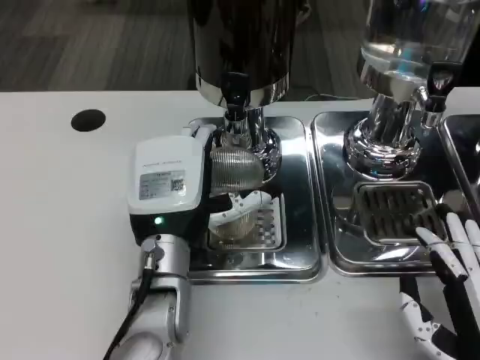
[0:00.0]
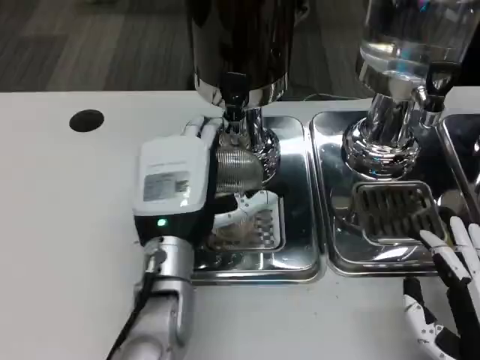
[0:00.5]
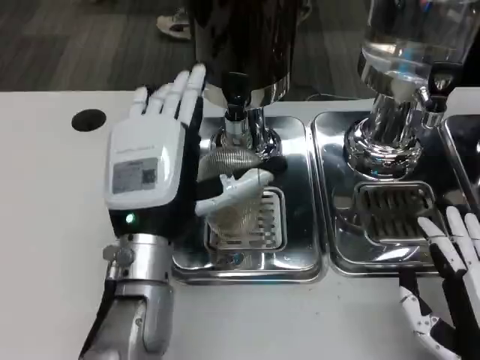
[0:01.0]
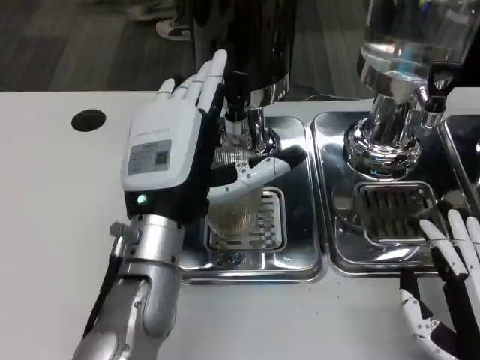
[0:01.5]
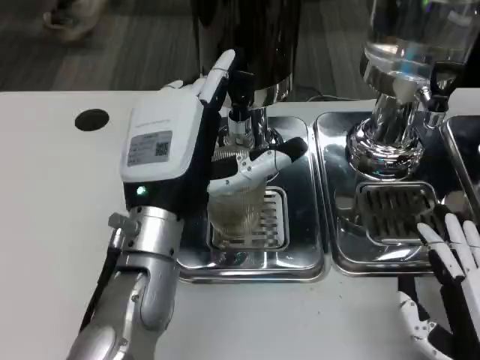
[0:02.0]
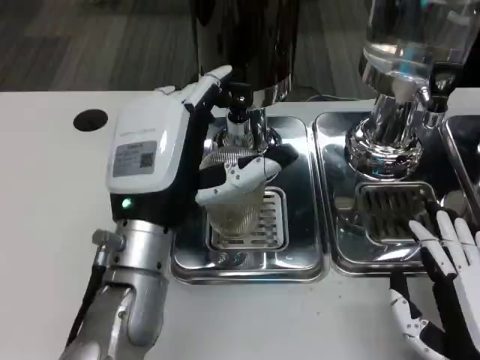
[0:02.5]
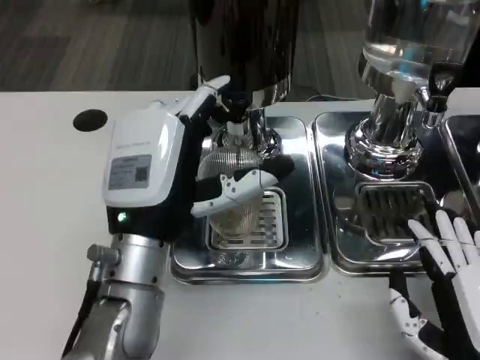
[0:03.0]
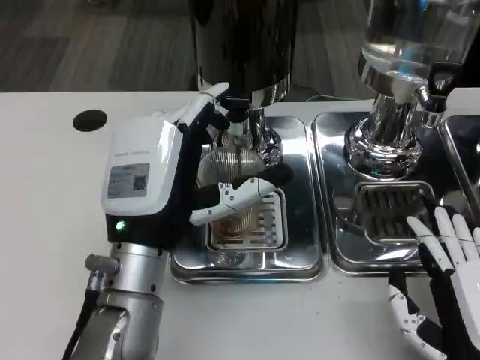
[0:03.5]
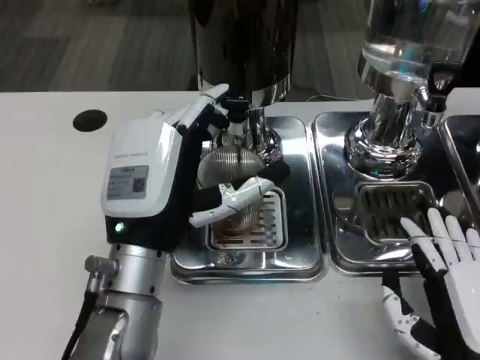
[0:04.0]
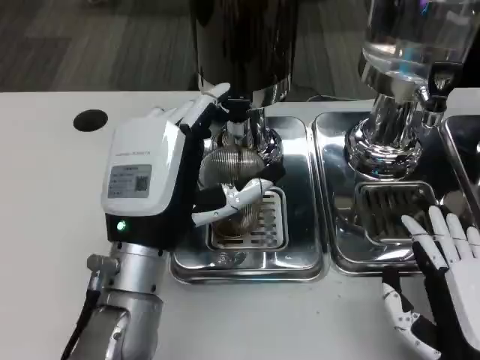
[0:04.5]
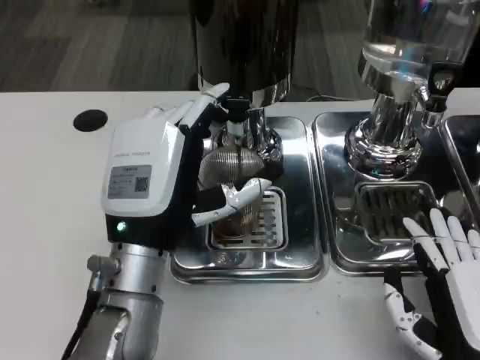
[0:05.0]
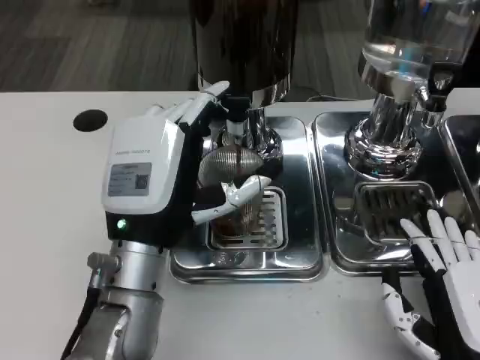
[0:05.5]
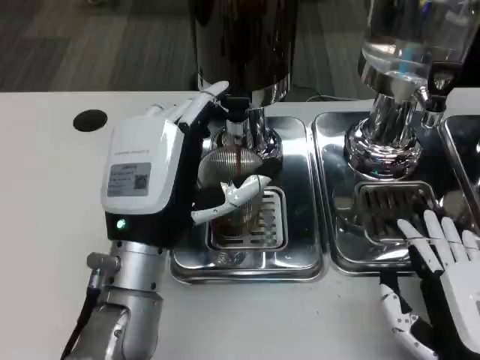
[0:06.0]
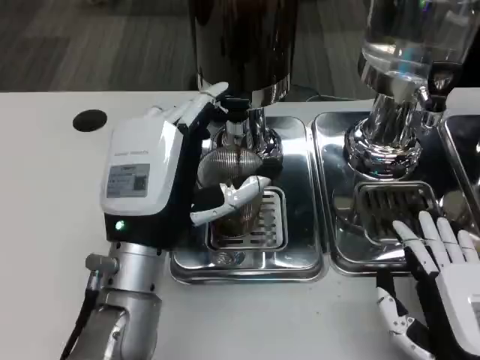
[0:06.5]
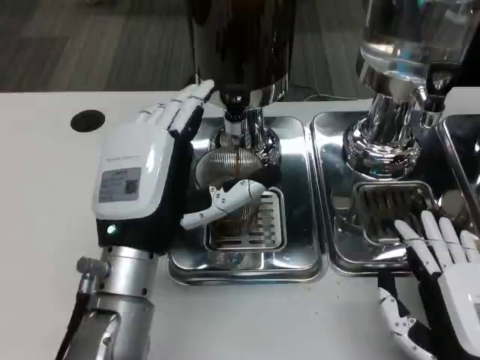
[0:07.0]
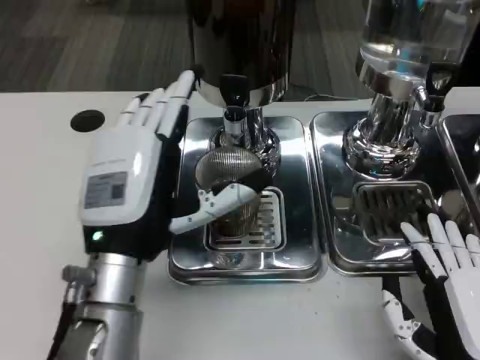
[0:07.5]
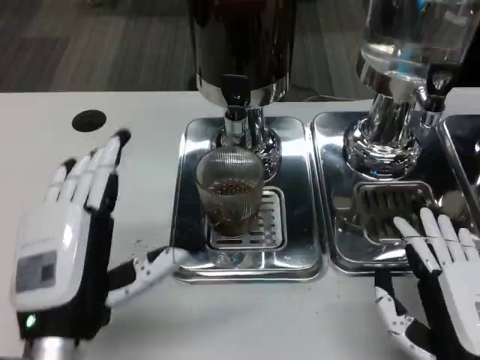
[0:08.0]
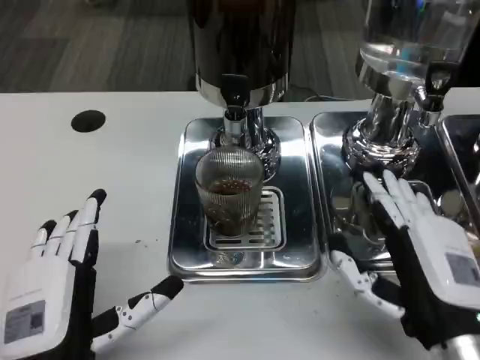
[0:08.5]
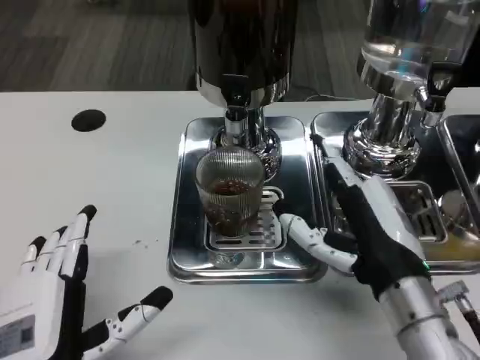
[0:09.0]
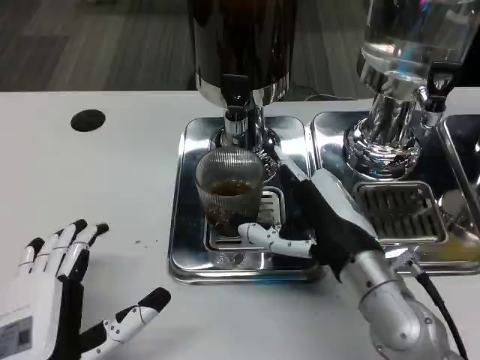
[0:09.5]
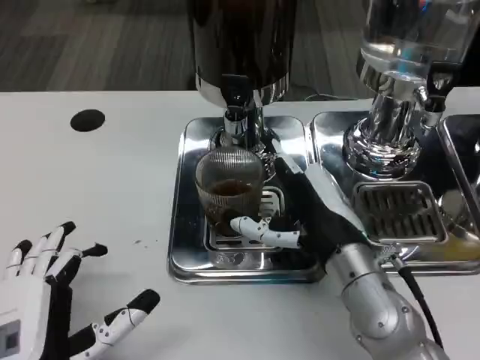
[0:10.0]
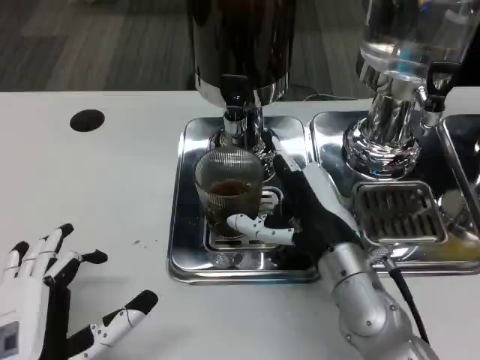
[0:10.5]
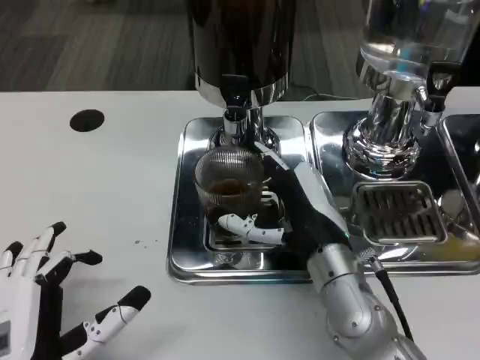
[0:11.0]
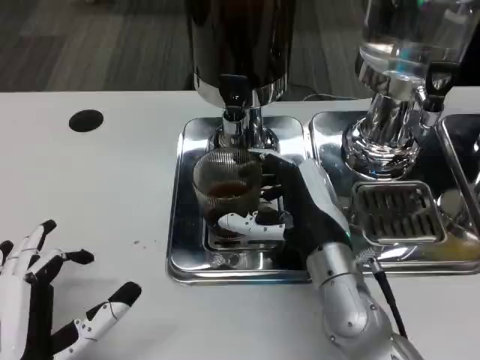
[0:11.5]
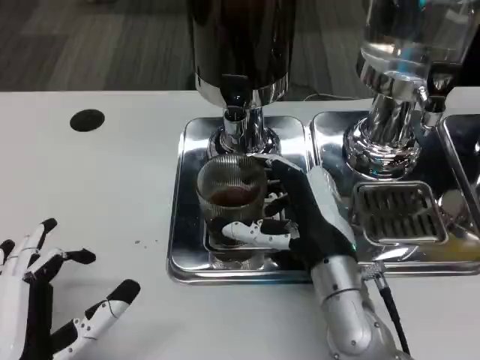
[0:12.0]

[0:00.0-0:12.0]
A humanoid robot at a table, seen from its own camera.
Task of the whole recording: Grasp the cup under the faucet to collect the drink, then remove the cup.
0:00.0 to 0:02.0: The left hand changes place by about 5 cm.
0:04.0 to 0:06.0: The two hands keep their place.
0:06.0 to 0:08.0: The left hand shifts some 10 cm backward and to the left.
0:08.0 to 0:10.0: The left hand changes place by roughly 5 cm, while the right hand moves forward and to the left, some 15 cm.
0:10.0 to 0:12.0: The hands move only a little.

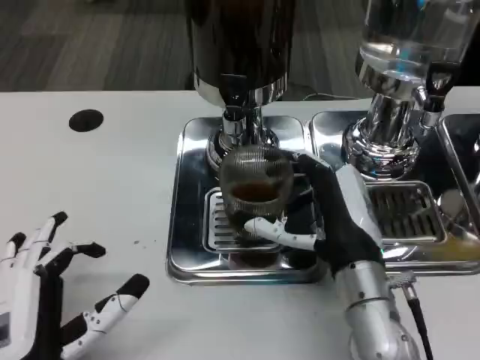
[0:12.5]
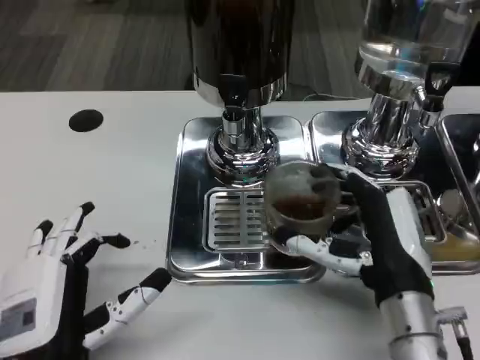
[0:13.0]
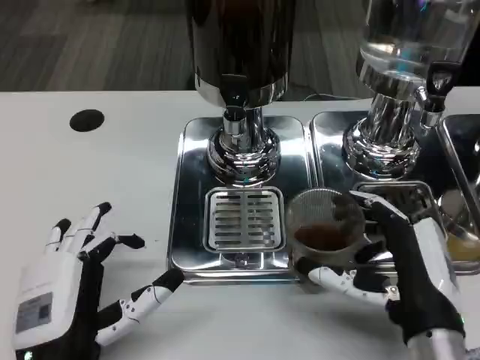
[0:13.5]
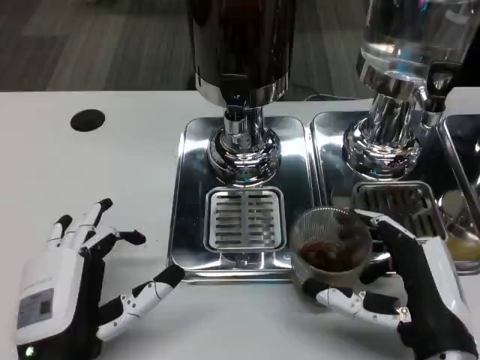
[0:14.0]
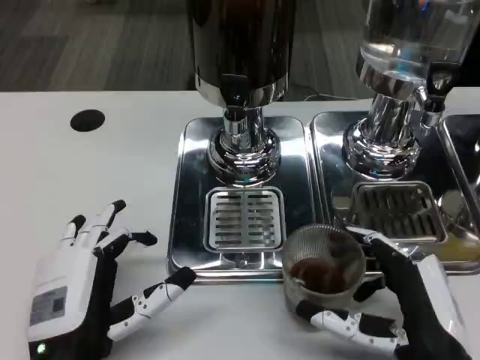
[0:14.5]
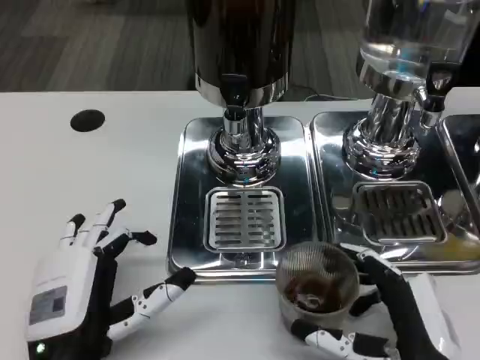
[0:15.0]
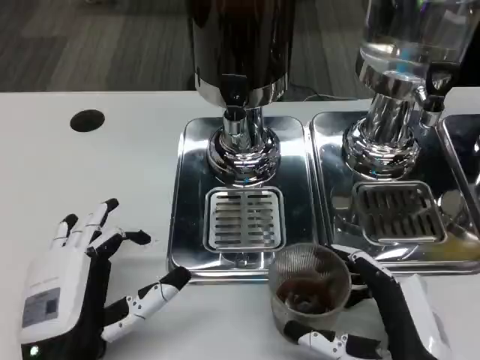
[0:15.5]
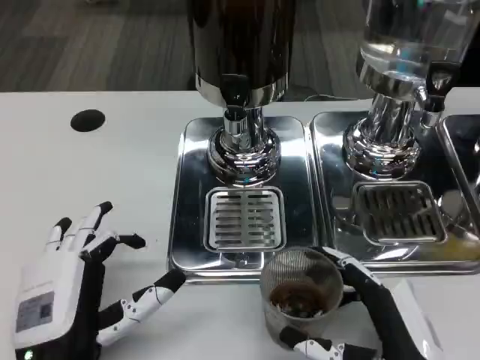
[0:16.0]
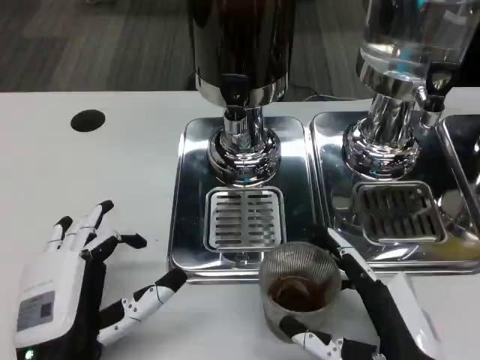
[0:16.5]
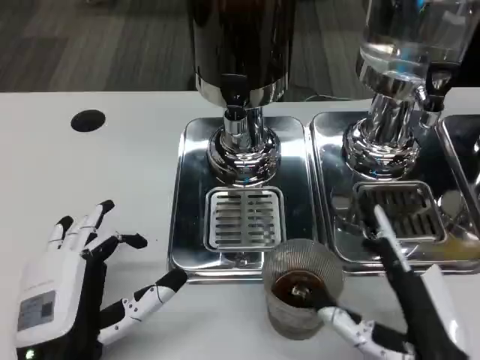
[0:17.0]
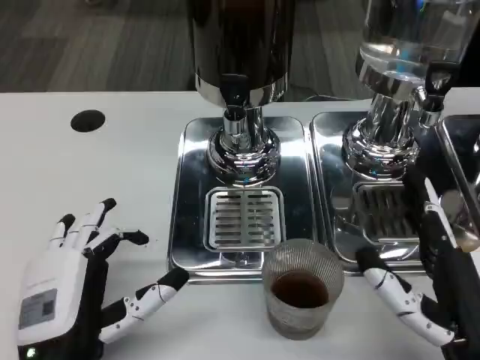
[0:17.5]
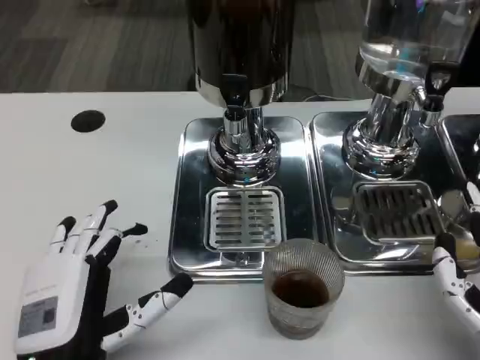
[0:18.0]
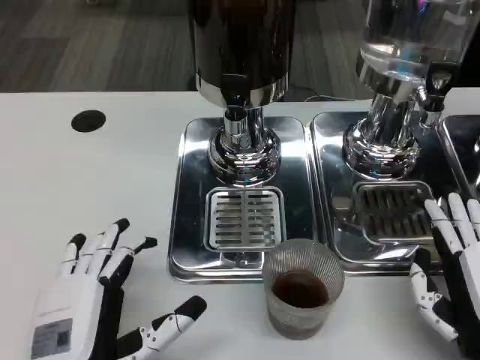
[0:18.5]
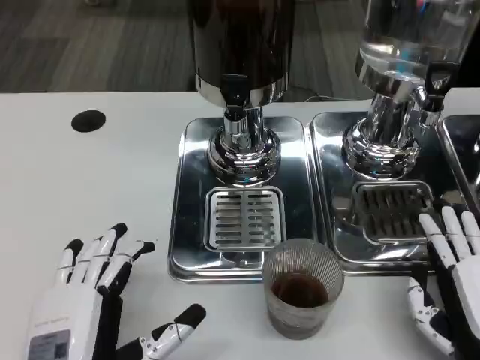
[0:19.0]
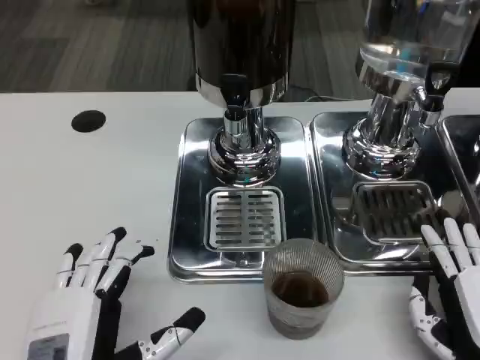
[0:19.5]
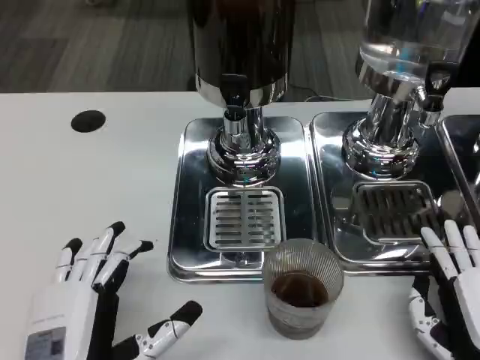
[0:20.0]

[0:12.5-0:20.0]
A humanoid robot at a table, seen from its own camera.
Task of the whole recording: Grasp the cup under the faucet to collect the drink, then remove the cup.
0:12.5 to 0:14.5: The right hand heads backward and to the right, covering roughly 10 cm.
0:14.5 to 0:16.5: The hands make only small movements.
0:16.5 to 0:18.0: The right hand travels to the right by approximately 5 cm.

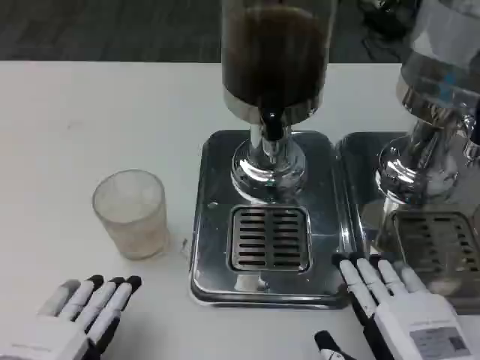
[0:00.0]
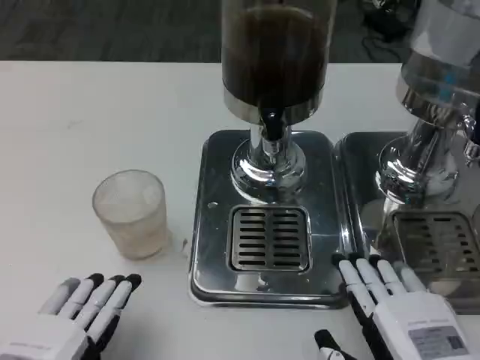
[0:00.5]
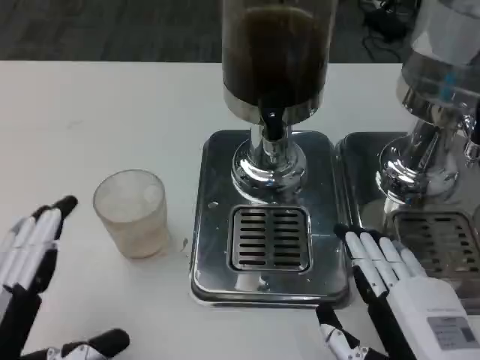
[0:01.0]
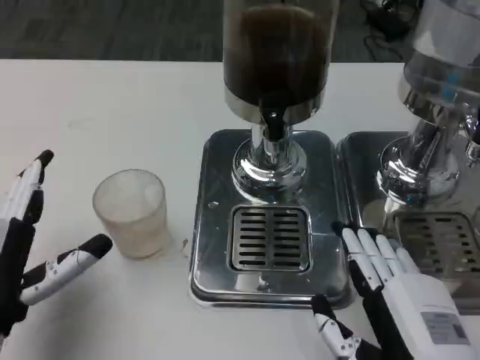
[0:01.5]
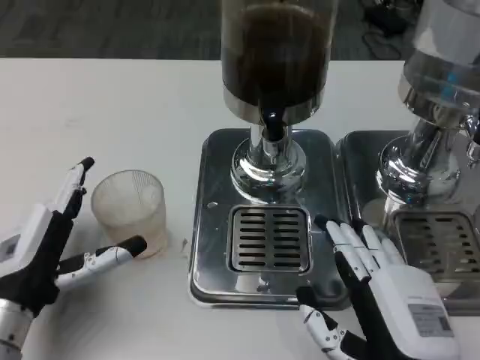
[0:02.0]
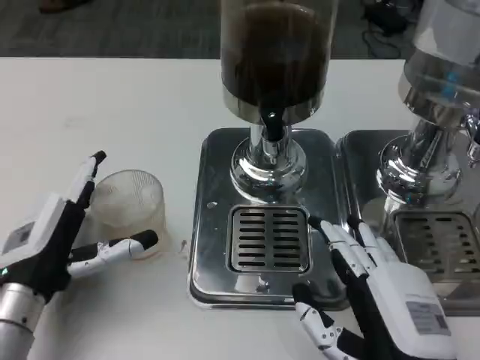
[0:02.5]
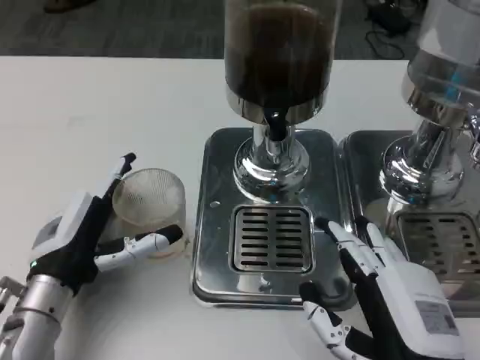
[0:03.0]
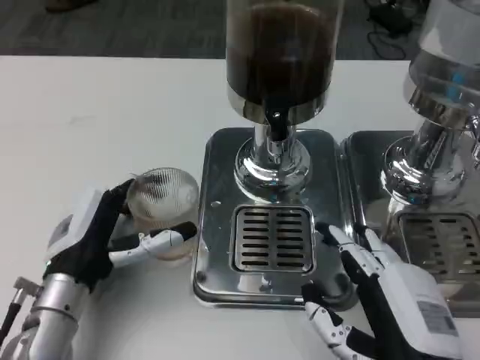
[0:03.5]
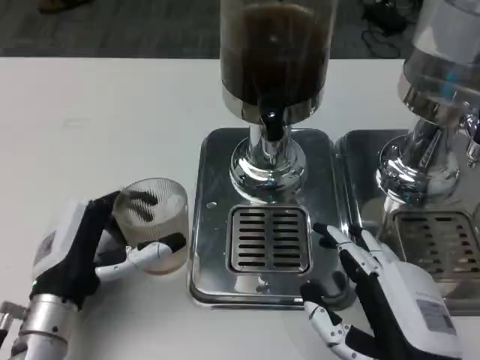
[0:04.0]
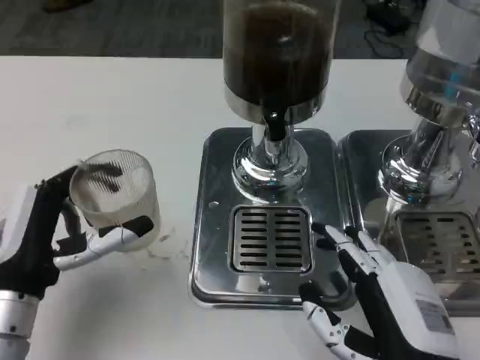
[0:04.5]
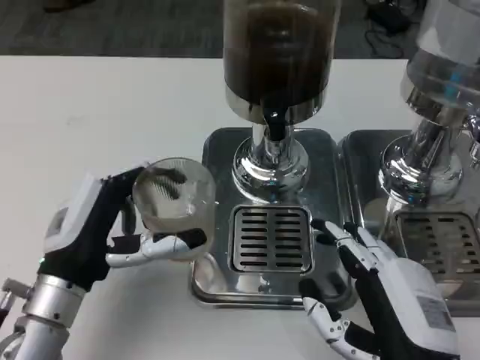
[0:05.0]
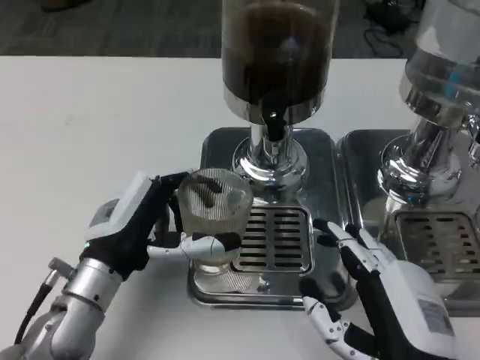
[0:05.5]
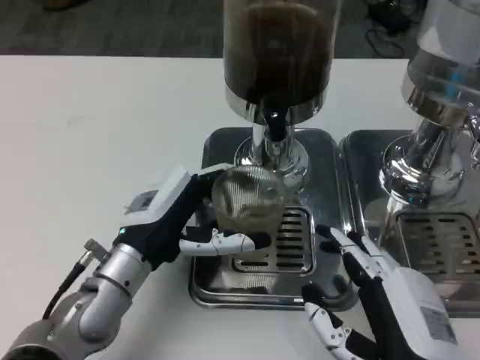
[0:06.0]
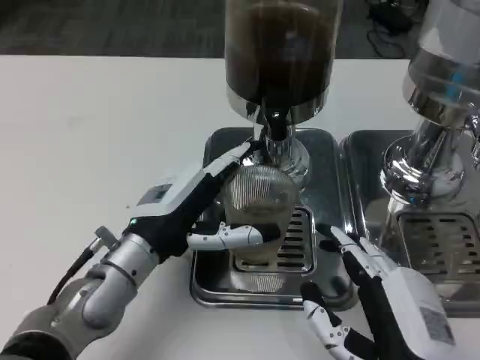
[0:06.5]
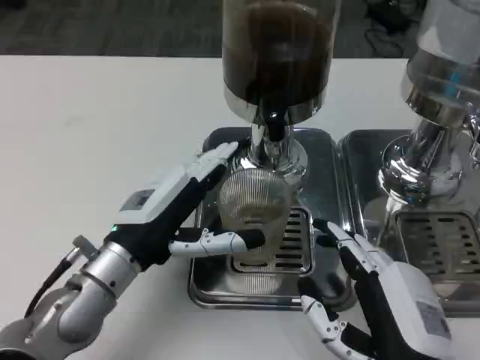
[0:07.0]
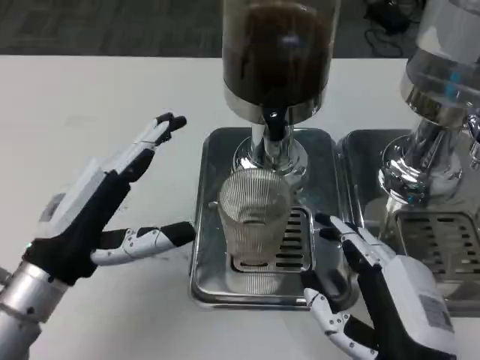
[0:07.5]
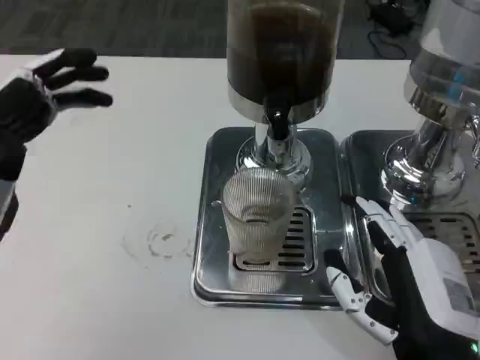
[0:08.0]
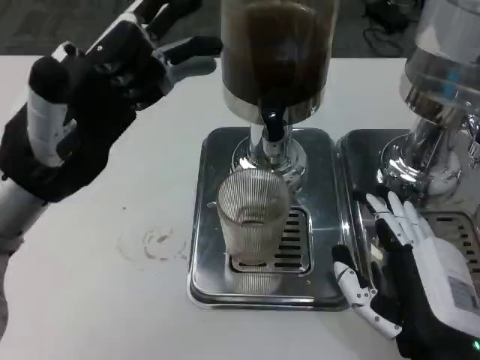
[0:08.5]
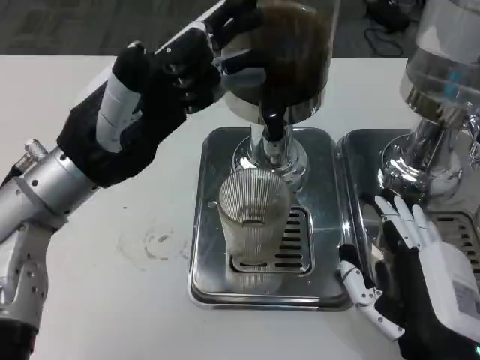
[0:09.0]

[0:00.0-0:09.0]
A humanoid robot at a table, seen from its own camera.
Task of the whole recording: Grasp the cup under the faucet to collect the drink, then remove the cup.
0:00.0 to 0:02.0: The left hand goes roughly 15 cm forward.
0:04.5 to 0:07.0: The left hand shifts about 10 cm to the right and forward.
0:07.0 to 0:09.0: The left hand heads upward, covering approximately 10 cm.
